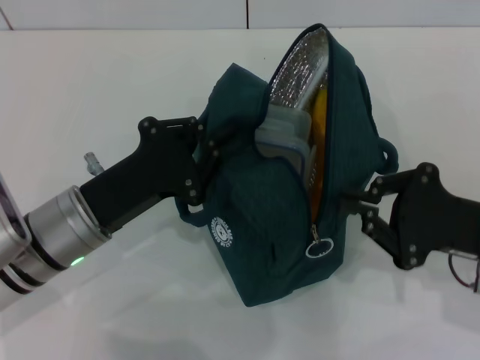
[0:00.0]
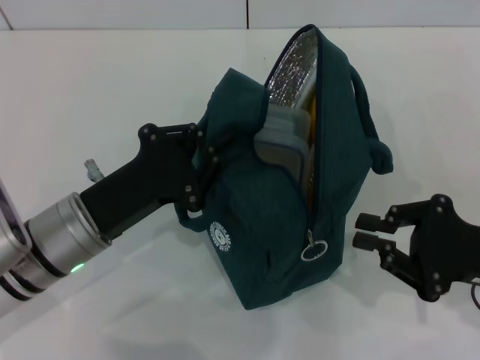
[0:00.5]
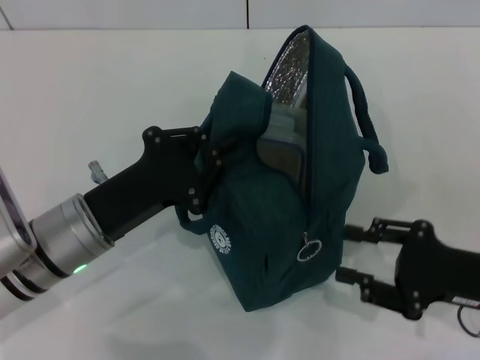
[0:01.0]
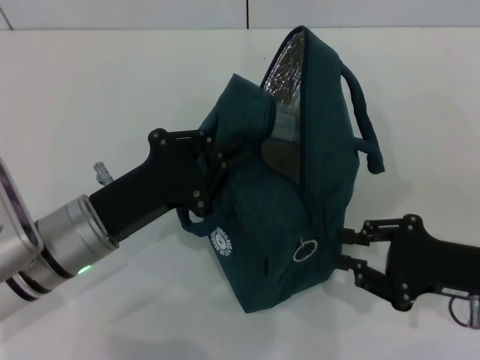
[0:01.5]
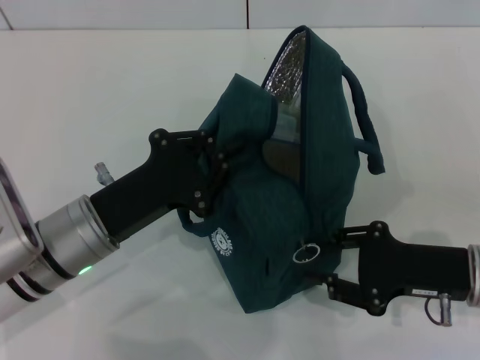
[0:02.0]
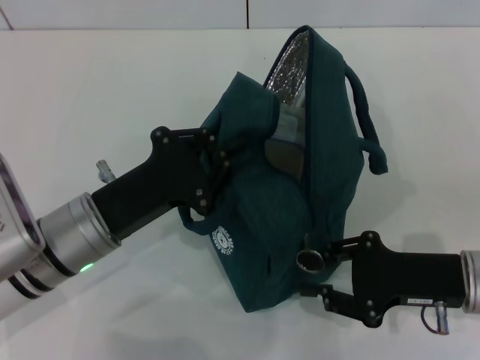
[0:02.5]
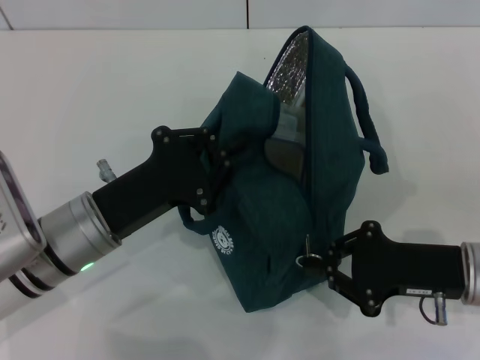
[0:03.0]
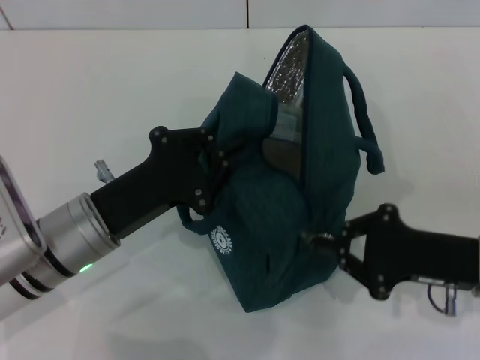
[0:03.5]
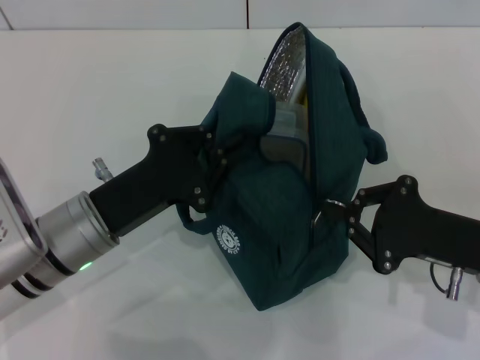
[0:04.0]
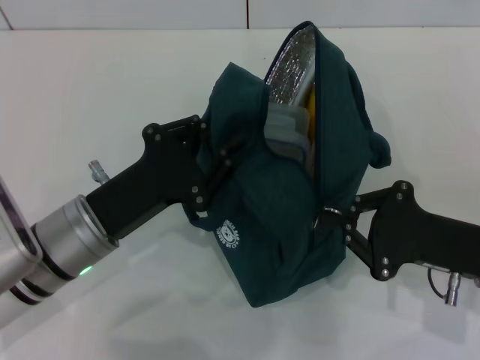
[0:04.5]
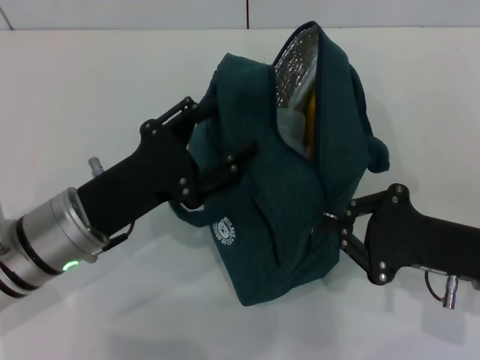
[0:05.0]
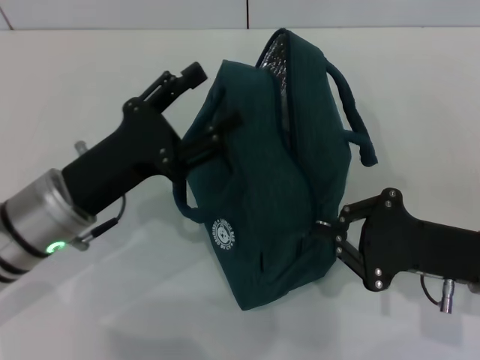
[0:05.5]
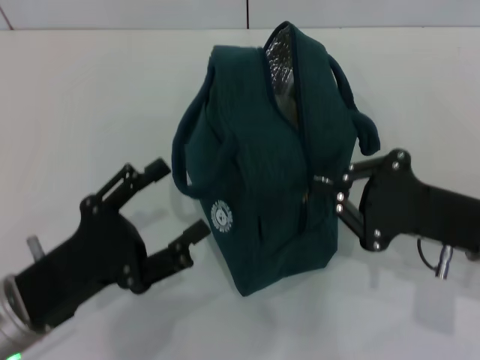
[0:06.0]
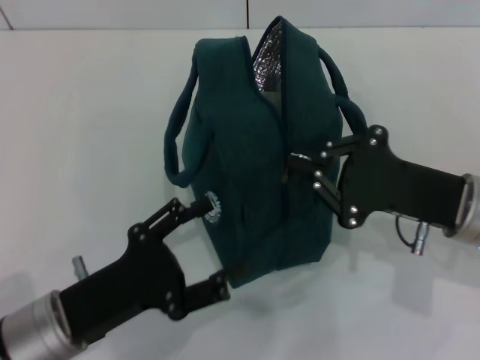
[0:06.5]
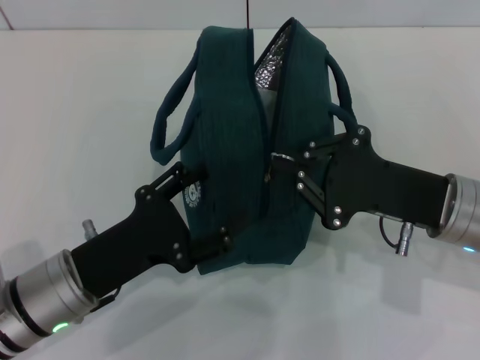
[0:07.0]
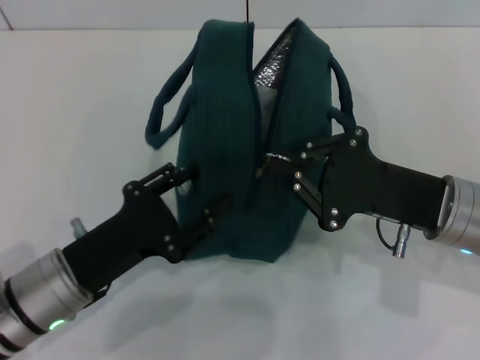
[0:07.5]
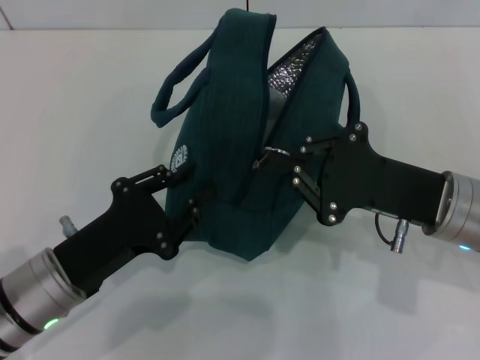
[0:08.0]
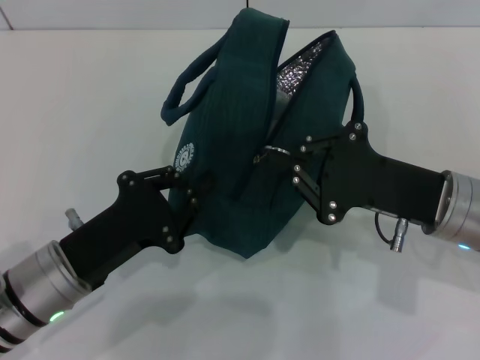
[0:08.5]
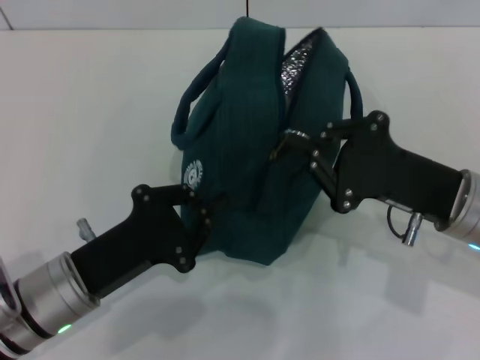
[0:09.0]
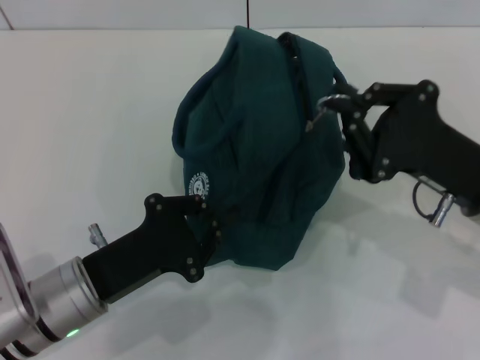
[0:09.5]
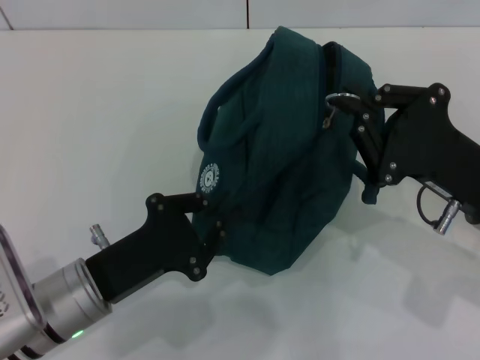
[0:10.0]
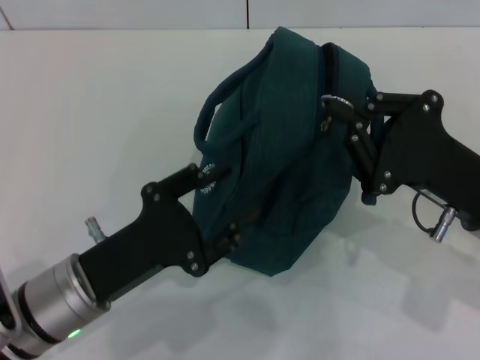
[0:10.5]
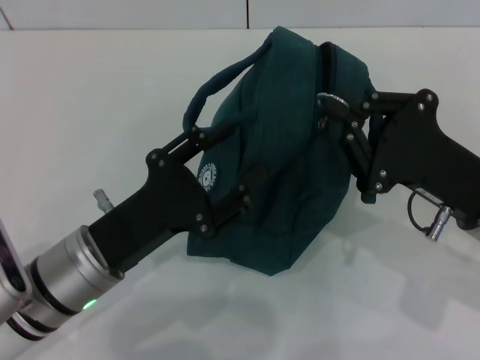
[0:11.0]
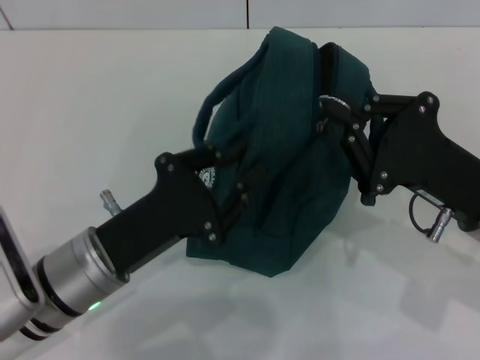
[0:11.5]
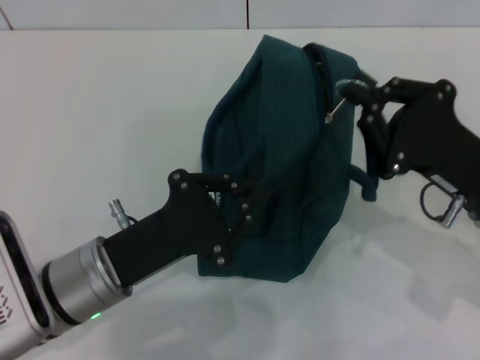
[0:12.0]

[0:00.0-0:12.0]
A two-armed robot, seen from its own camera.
4.0 to 6.0 s: The left gripper is displaced backward by about 5 cm, and opens.
6.0 to 8.0 s: The left gripper closes.
8.0 to 10.0 s: The left gripper closes up.
10.0 to 12.0 s: The left gripper opens, then closes once more.

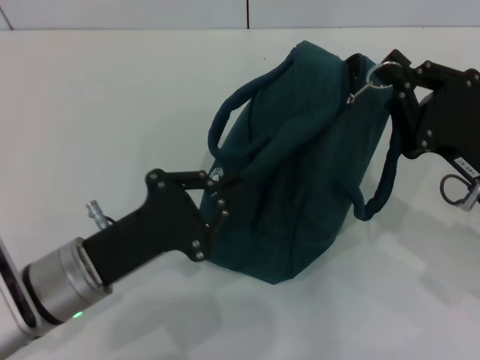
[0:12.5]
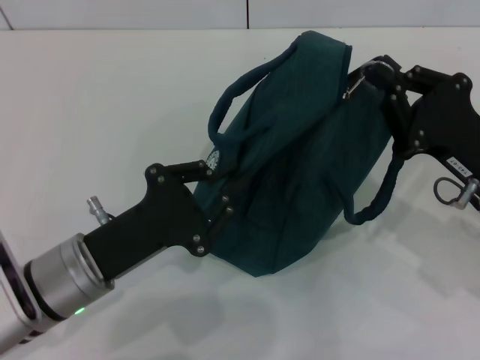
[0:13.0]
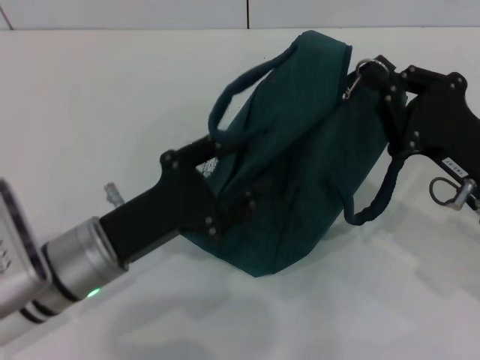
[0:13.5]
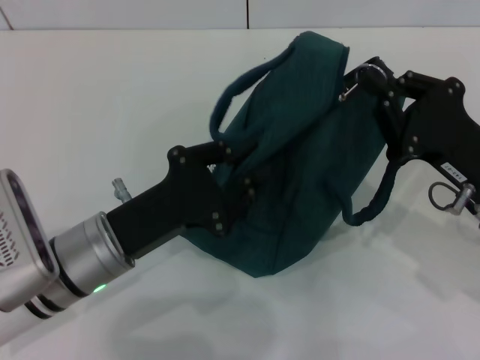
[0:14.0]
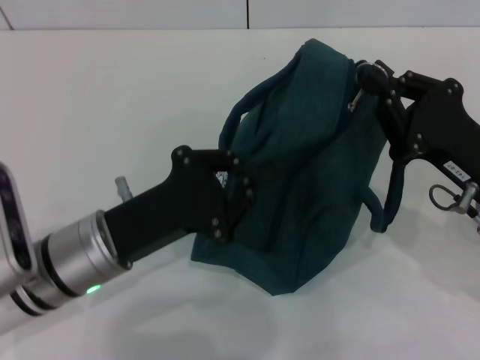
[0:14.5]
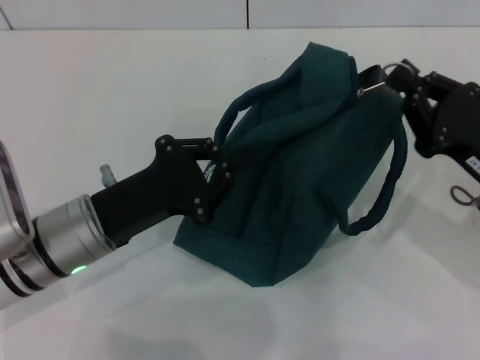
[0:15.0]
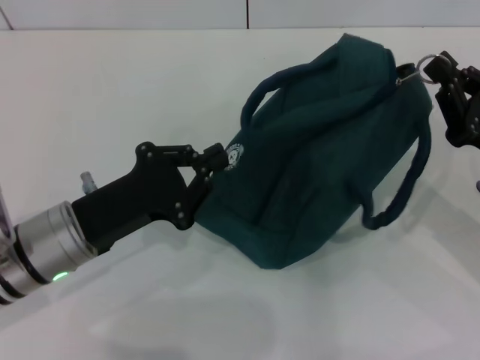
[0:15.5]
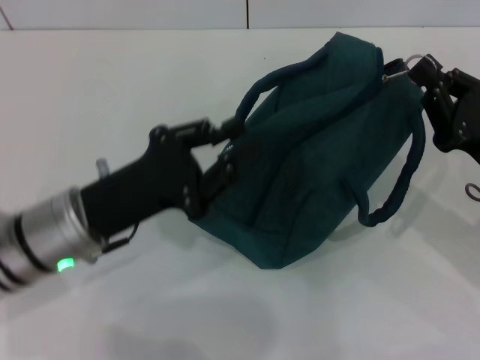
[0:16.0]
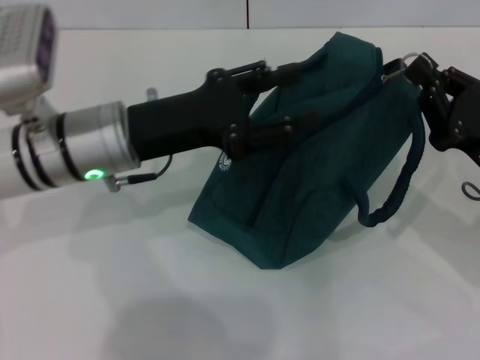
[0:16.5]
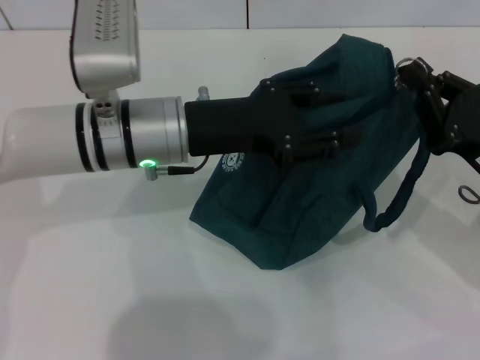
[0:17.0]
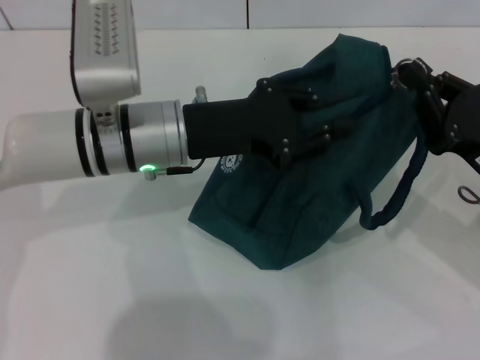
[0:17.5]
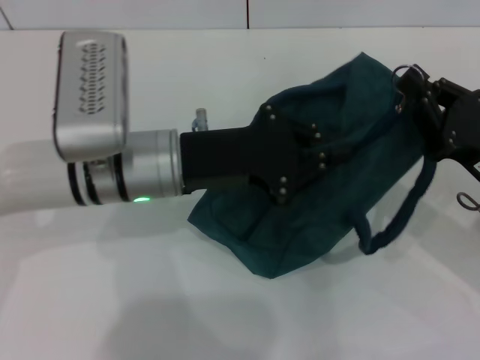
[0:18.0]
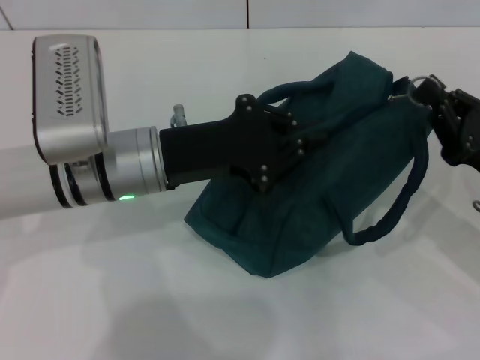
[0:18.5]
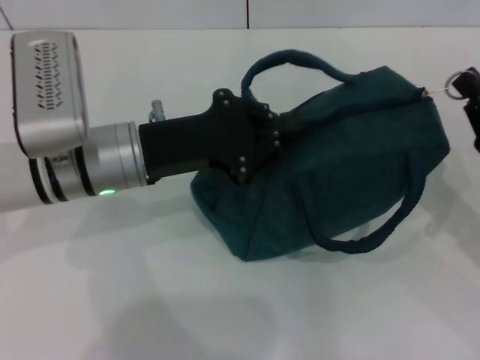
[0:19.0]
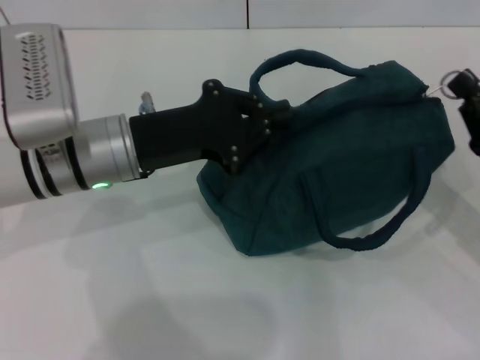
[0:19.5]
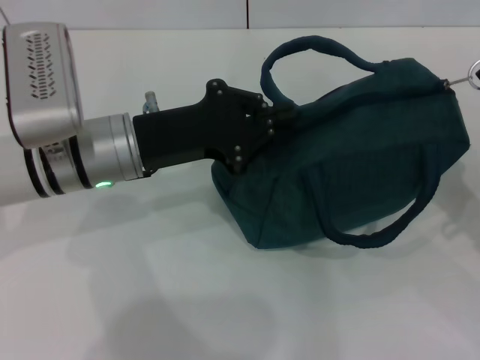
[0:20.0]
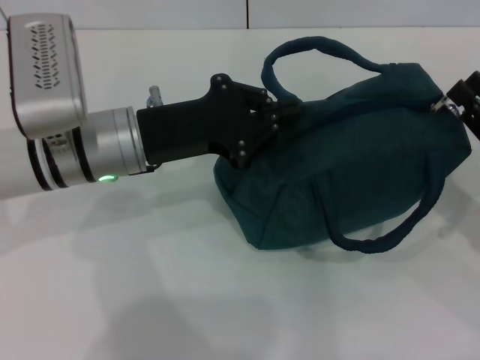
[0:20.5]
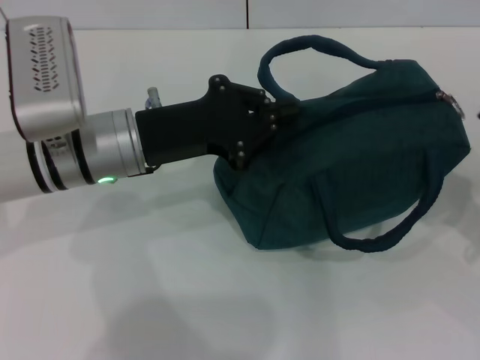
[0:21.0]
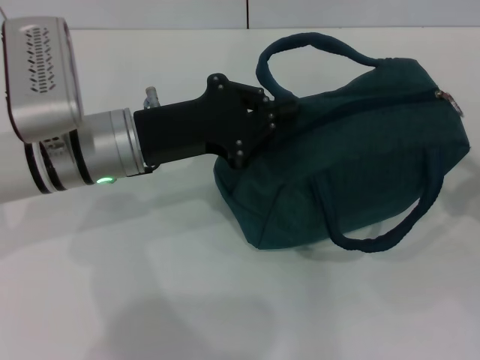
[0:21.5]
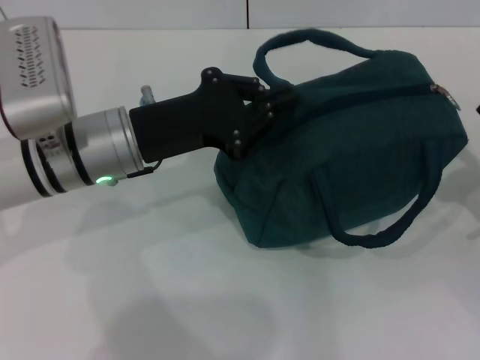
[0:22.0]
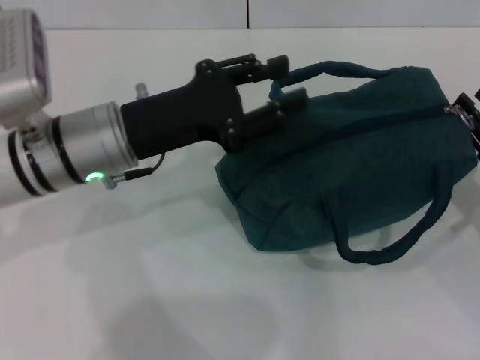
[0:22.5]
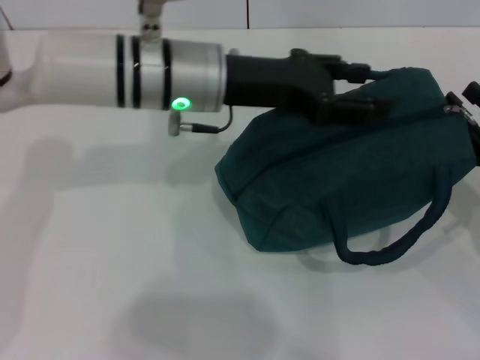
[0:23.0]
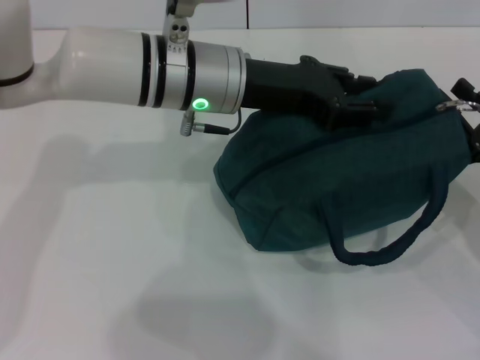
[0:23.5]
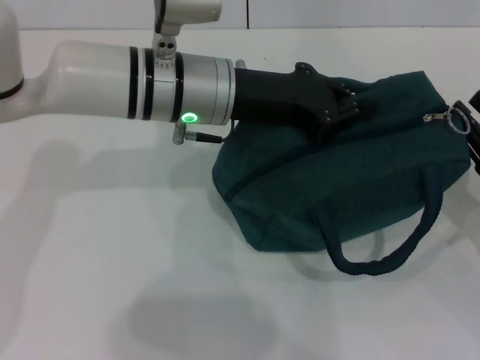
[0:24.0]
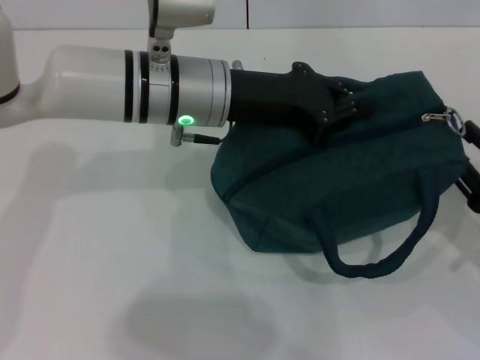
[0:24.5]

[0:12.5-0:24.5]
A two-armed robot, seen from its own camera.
12.5 to 14.5 s: The left gripper opens, then closes once more.
14.5 to 16.5 s: The left gripper is displaced forward and upward by some 10 cm, and opens.
16.5 to 18.5 s: The left gripper closes its fingers.
18.5 to 20.5 s: The right gripper opens its fingers.
20.5 to 22.5 s: There are only small adjustments of the grippers.
22.5 to 24.5 s: The left gripper heads to the right, covering roughly 10 cm, and opens, then closes once more.

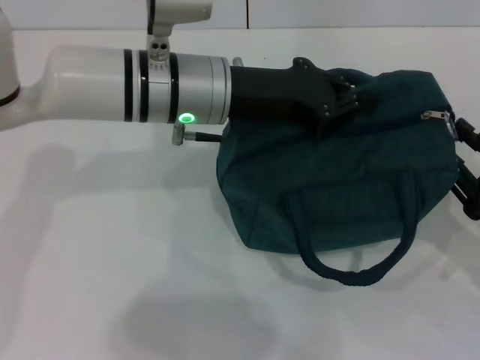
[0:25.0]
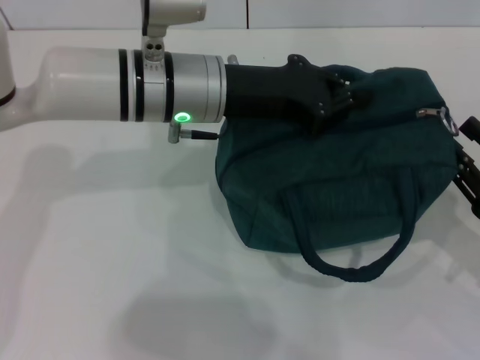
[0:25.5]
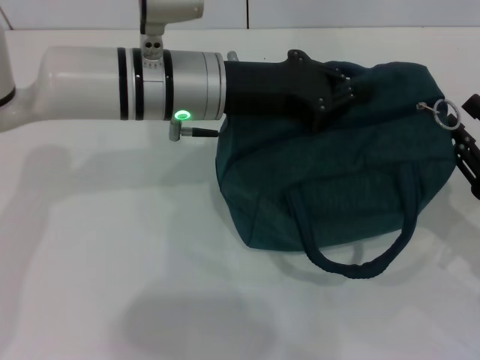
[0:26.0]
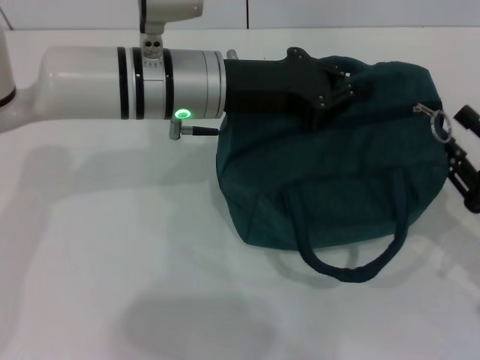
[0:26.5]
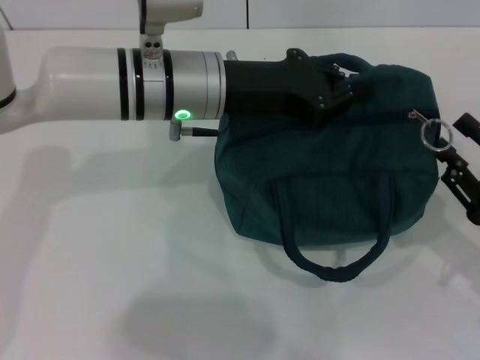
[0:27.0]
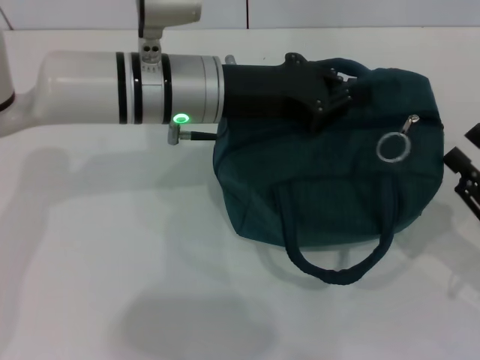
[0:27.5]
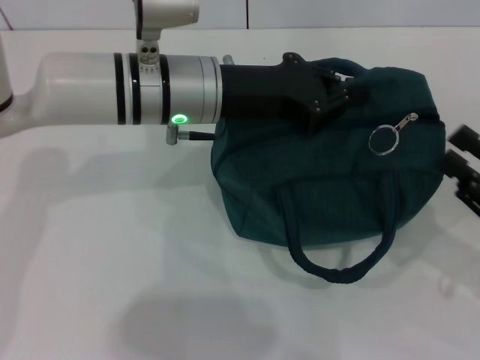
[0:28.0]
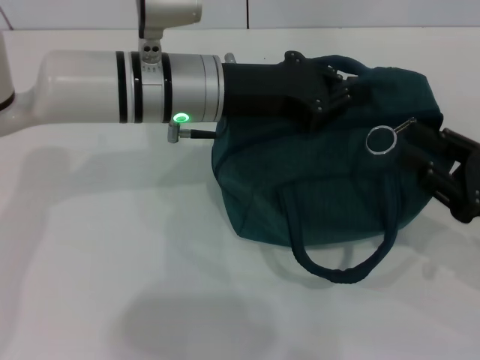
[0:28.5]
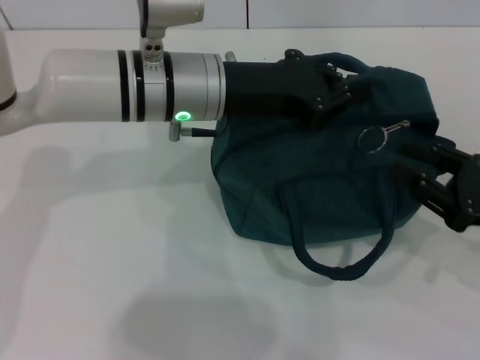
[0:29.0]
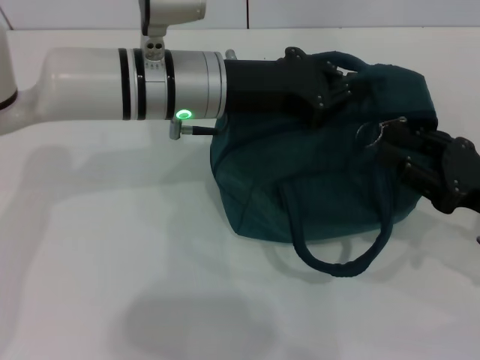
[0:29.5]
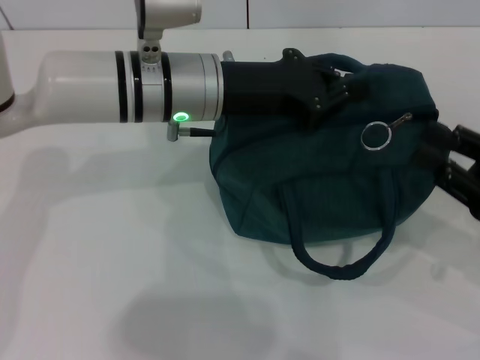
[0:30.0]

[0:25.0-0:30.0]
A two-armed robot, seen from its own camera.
25.0 to 27.5 s: The grippers move only a little.
